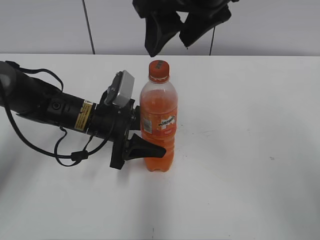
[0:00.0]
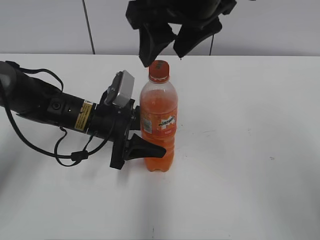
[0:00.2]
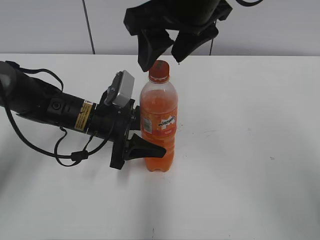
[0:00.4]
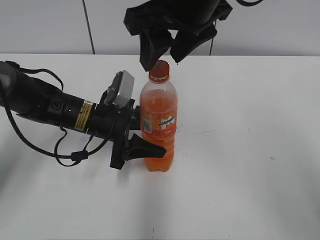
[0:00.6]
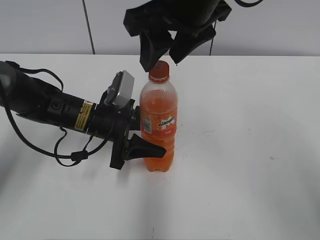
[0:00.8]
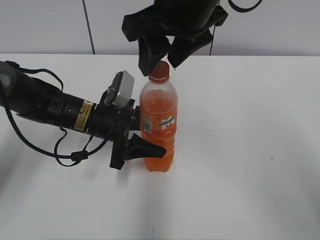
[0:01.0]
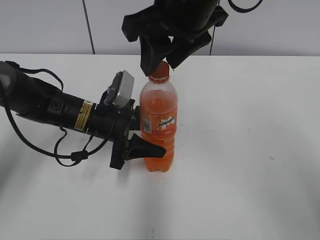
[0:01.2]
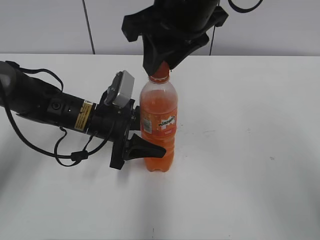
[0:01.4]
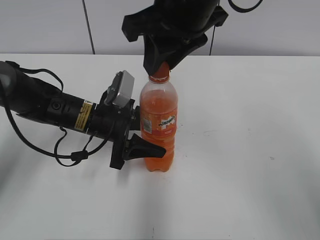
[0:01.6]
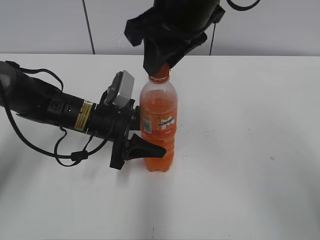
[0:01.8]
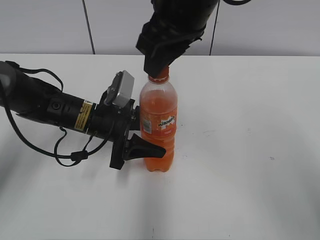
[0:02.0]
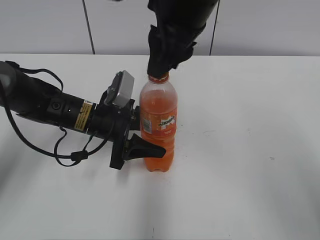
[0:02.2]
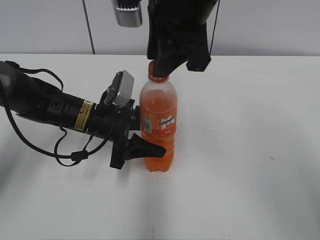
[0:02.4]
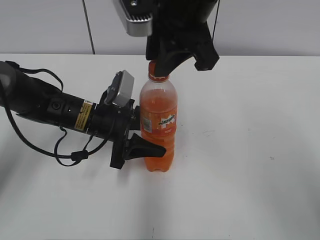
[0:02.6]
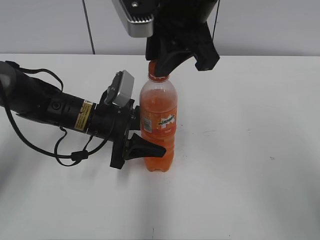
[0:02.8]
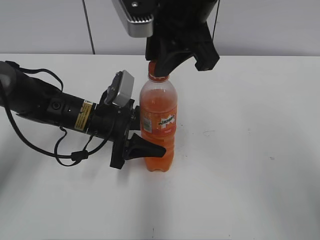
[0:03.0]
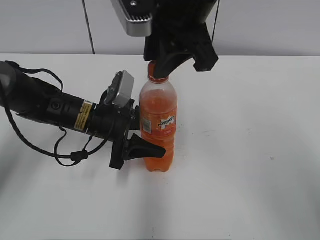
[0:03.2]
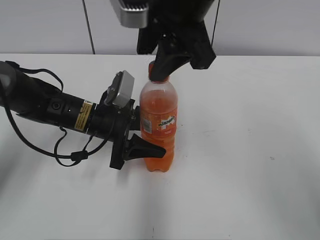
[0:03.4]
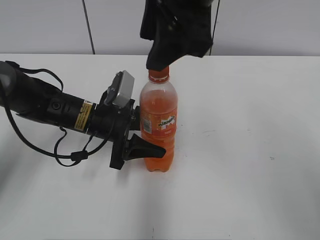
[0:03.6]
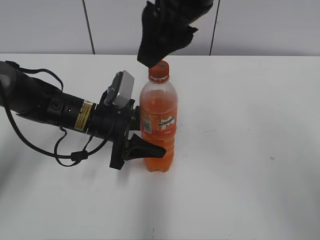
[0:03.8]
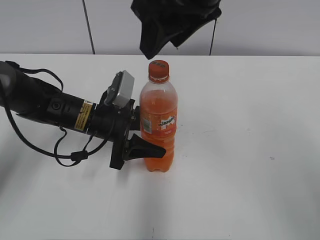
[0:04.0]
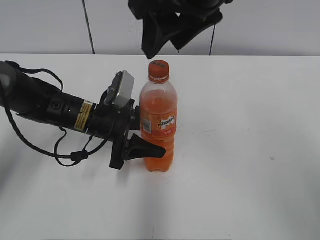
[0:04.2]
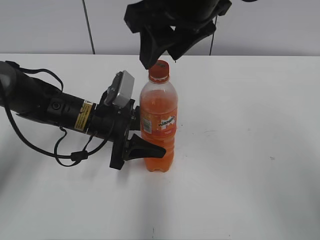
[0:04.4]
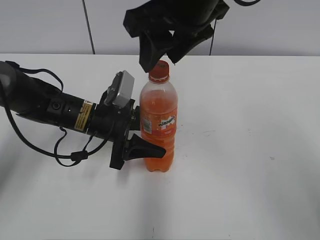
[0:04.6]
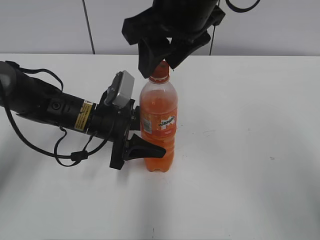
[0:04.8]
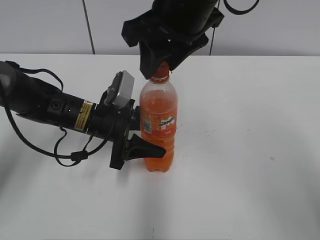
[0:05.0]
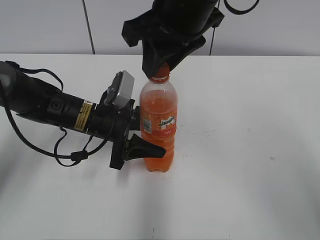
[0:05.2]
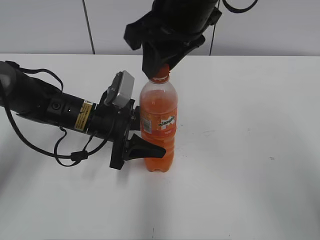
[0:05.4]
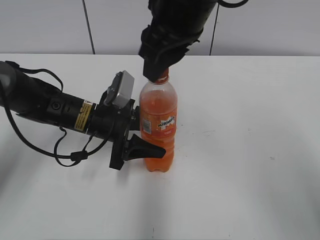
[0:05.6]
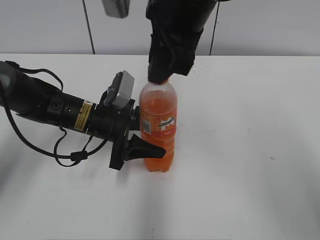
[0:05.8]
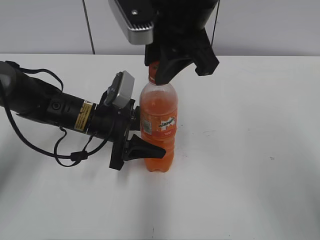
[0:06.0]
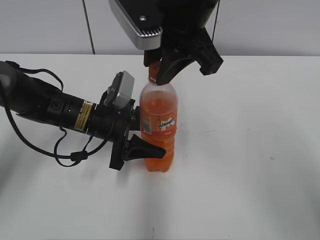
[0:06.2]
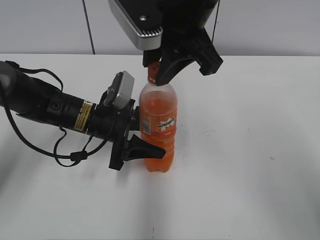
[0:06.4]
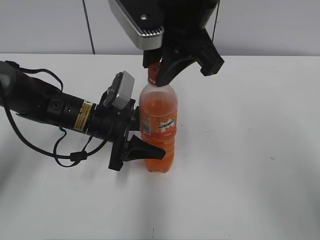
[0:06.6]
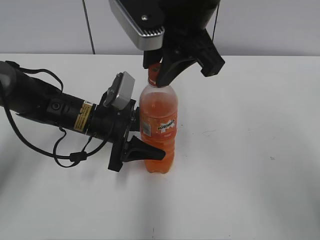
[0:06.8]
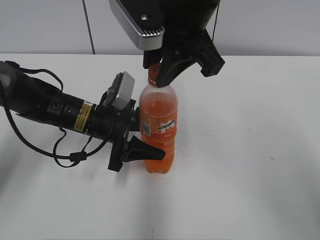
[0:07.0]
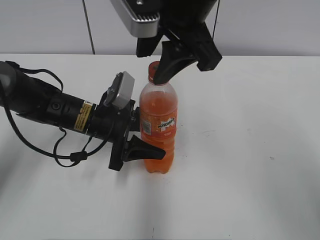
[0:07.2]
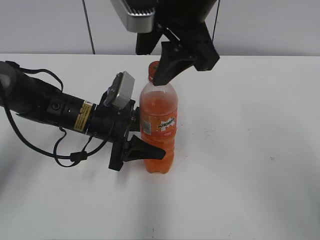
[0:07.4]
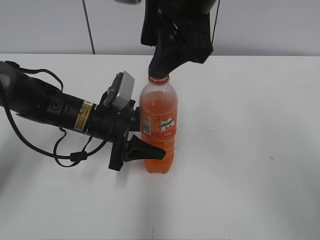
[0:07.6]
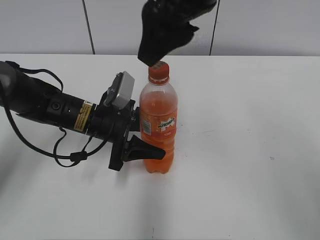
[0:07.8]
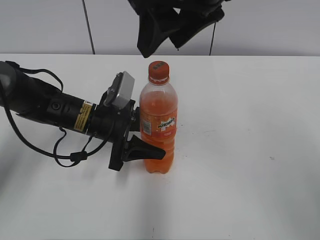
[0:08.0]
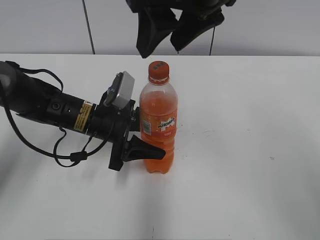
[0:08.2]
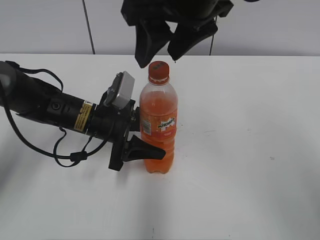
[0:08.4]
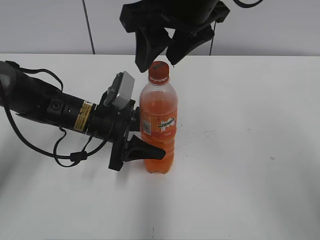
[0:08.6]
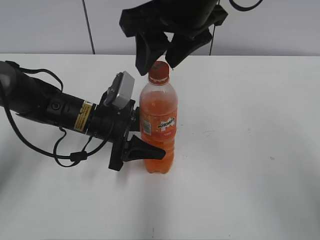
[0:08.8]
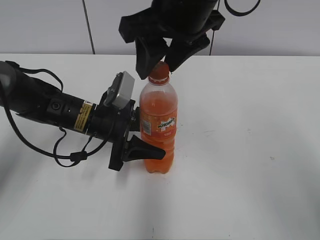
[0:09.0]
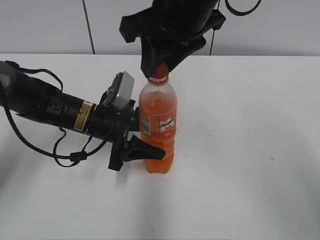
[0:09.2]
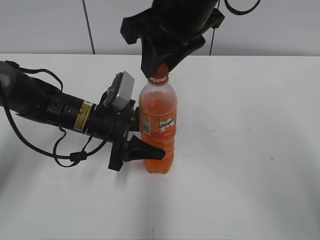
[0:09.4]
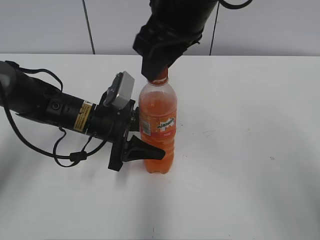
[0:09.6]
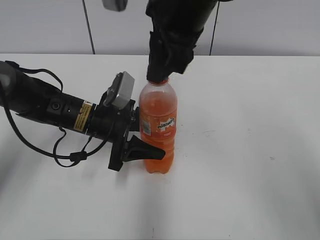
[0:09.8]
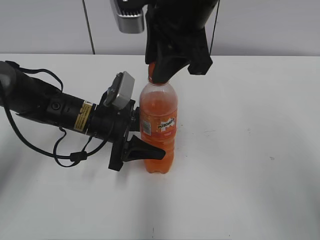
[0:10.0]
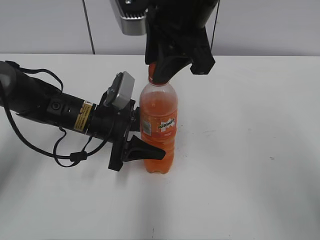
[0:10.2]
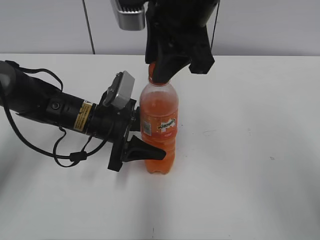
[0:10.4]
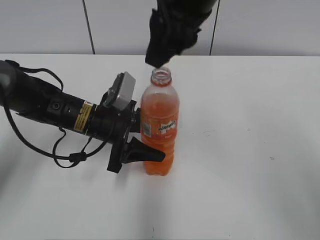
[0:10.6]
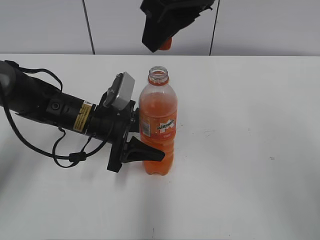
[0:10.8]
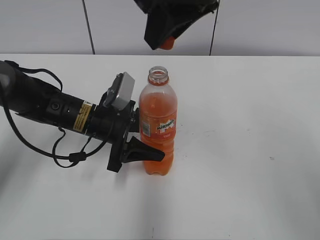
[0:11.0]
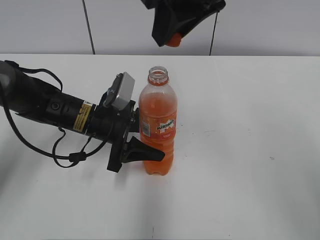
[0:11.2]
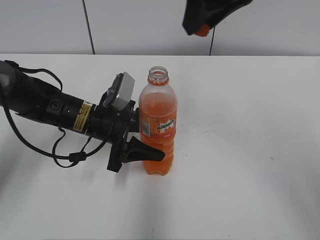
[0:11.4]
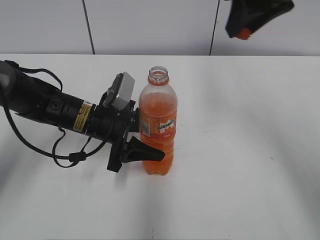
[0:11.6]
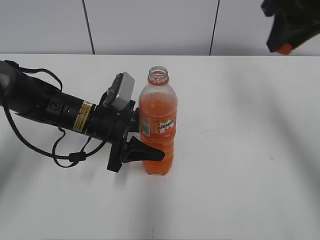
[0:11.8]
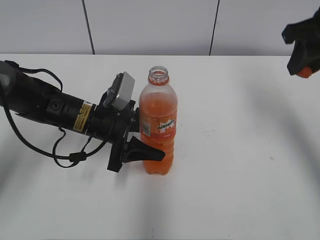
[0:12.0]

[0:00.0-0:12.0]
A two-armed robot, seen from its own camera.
0:00.0 to 0:01.6: The right gripper closes.
0:03.0 to 0:04.4: The right gripper opens.
0:04.4 to 0:06.0: The right gripper closes up.
0:06.0 to 0:07.6: The right gripper opens.
0:09.0 to 0:10.4: The right gripper closes its fingers.
0:10.4 to 0:12.0: The right gripper heads to the right, covering approximately 20 cm.

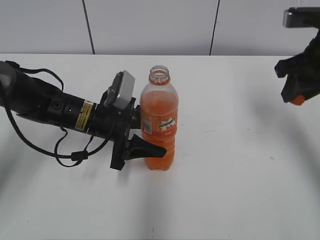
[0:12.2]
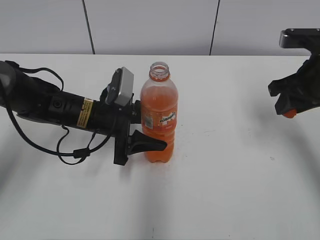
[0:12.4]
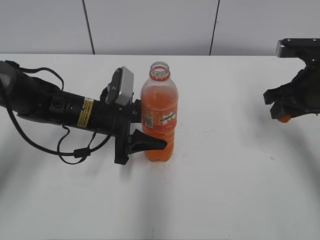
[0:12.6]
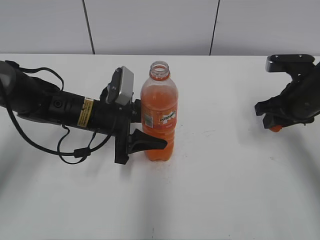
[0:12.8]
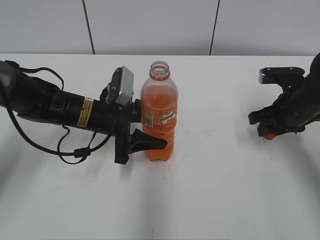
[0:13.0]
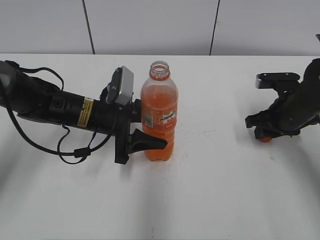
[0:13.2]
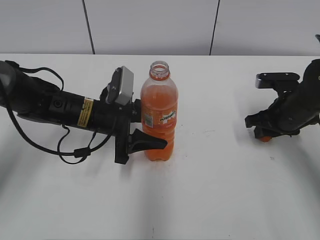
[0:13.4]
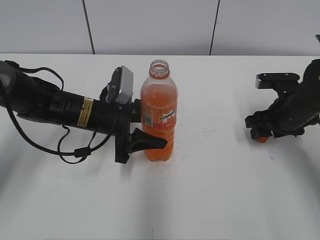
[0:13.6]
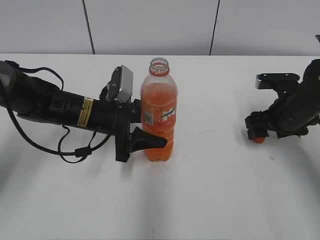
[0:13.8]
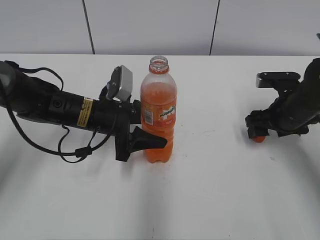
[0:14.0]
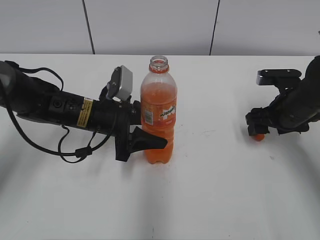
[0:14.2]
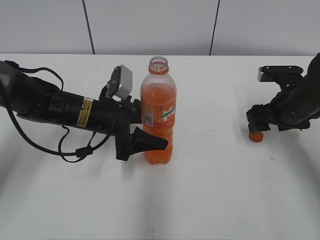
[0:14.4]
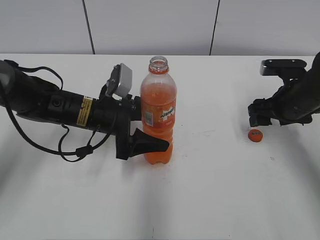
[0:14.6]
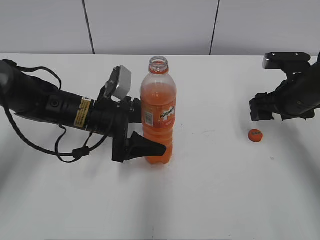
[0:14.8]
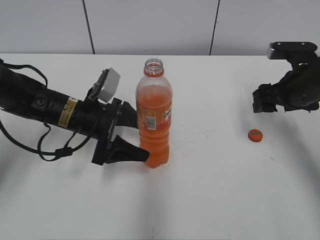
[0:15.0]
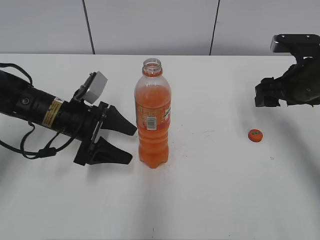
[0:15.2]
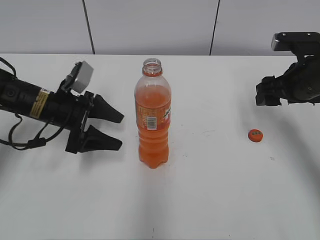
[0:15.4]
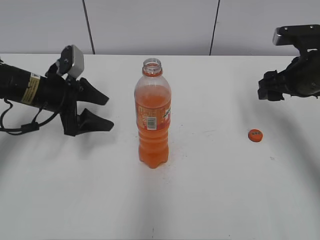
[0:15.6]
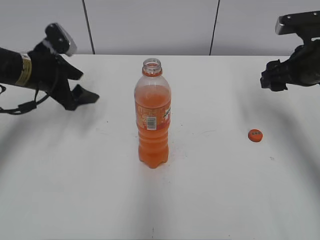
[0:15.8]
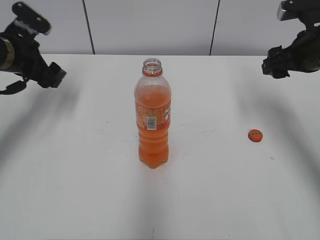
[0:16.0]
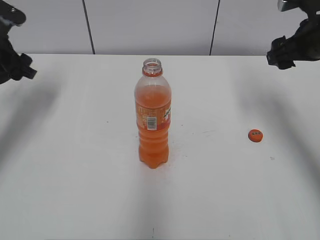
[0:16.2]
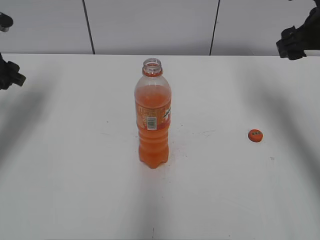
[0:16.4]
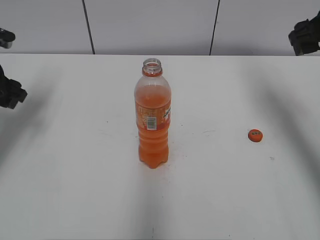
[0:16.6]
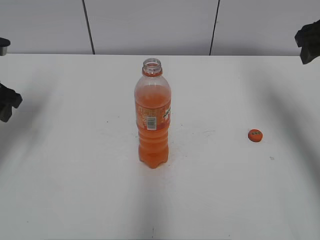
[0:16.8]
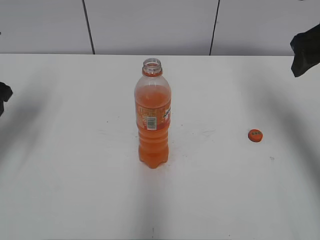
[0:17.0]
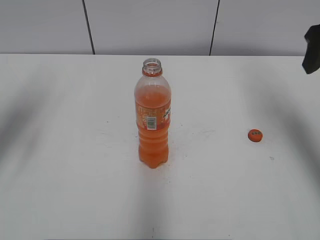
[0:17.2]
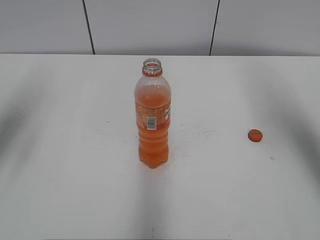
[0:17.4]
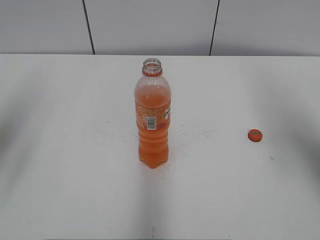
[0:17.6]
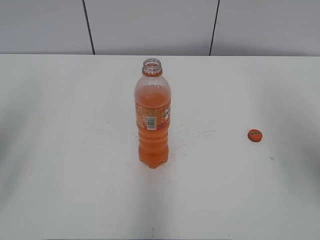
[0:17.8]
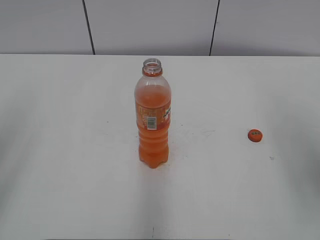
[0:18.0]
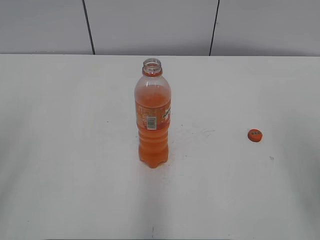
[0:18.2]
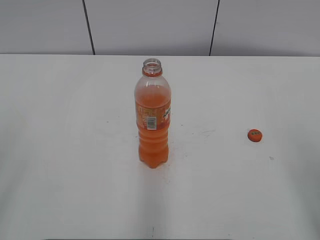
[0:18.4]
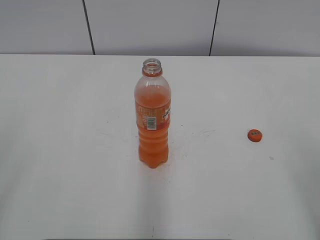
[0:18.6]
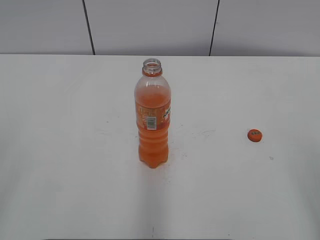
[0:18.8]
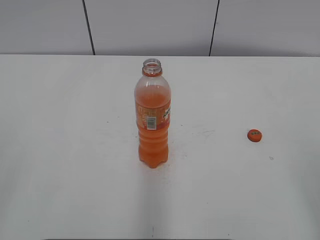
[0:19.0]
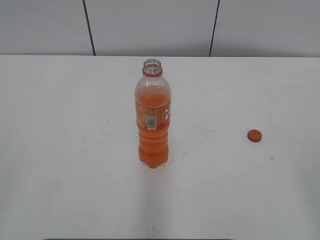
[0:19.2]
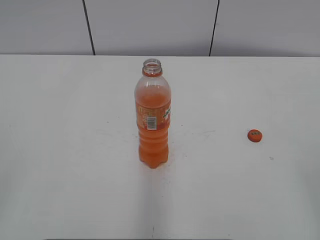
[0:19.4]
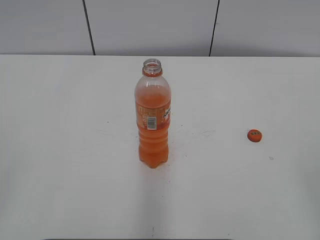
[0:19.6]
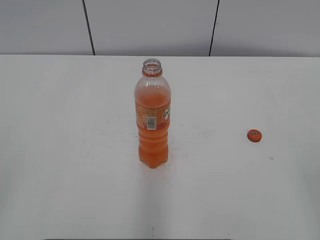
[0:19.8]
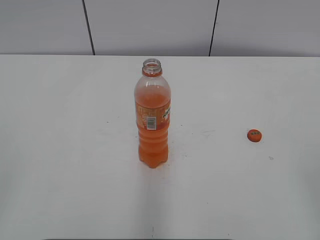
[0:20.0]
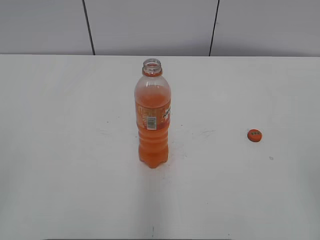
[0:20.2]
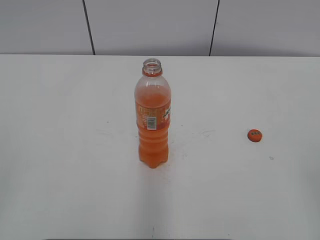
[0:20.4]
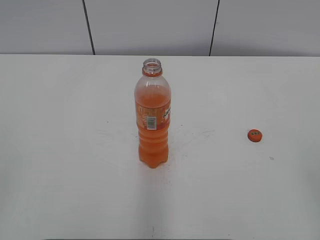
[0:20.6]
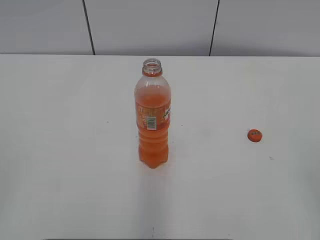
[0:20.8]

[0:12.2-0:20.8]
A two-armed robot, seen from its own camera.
Step, 0:12.2 to 0:14.0: Place the bottle cap on the right.
Step, 0:14.2 to 0:14.6: Place the Mirinda with the left hand.
0:12.2 to 0:13.6: The right gripper heads downward, covering roughly 15 cm, and opens its fingers.
0:13.6 to 0:15.0: The left gripper opens up. The right gripper is displaced upward by about 5 cm, and opens.
0:15.0 to 0:16.6: The right gripper shifts approximately 10 cm upward. The left gripper is displaced to the left and upward by approximately 20 cm.
0:16.6 to 0:18.0: The right gripper goes roughly 20 cm backward; the left gripper moves backward and upward, about 25 cm.
